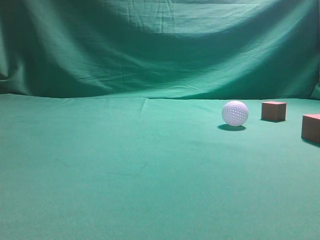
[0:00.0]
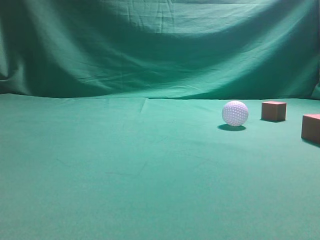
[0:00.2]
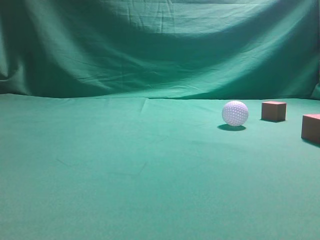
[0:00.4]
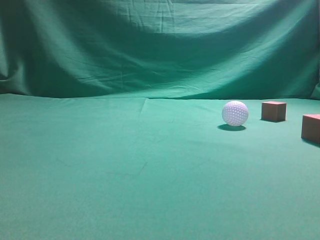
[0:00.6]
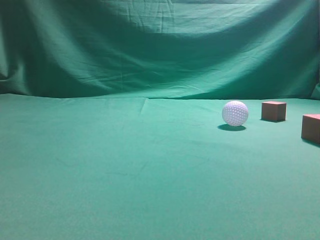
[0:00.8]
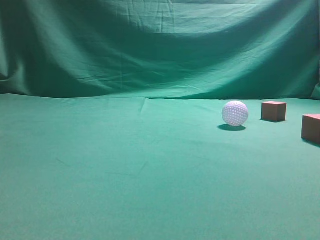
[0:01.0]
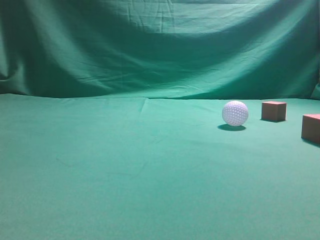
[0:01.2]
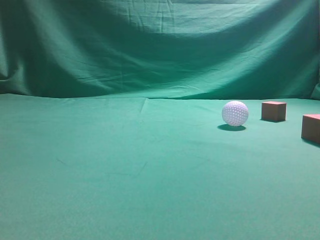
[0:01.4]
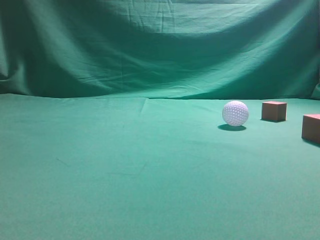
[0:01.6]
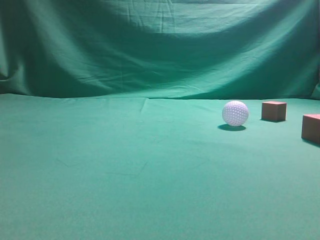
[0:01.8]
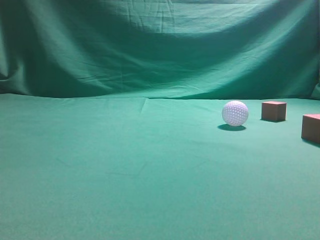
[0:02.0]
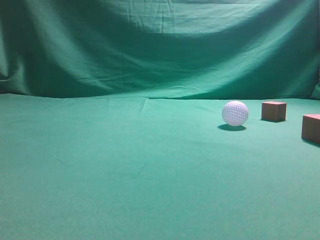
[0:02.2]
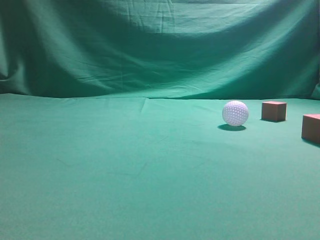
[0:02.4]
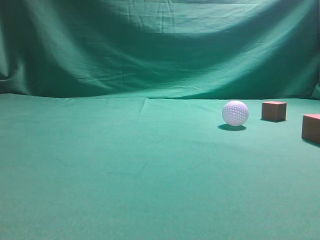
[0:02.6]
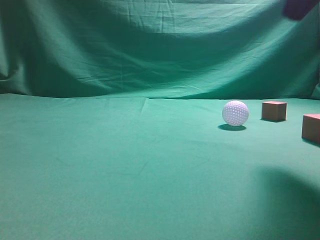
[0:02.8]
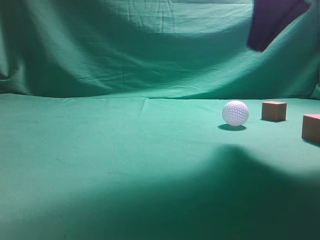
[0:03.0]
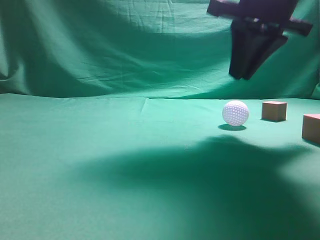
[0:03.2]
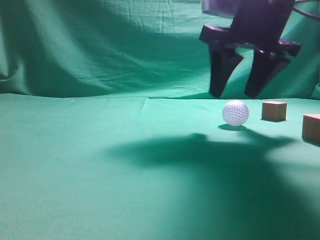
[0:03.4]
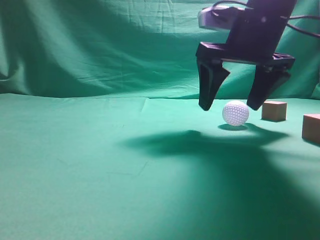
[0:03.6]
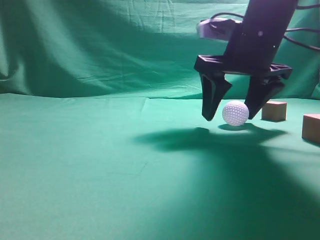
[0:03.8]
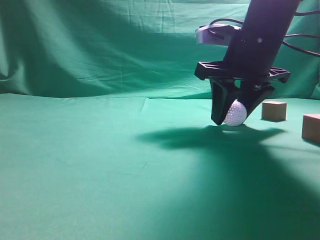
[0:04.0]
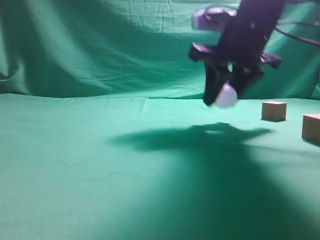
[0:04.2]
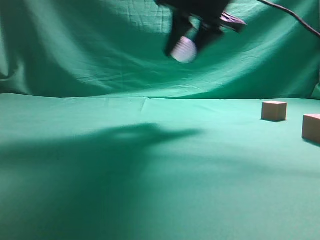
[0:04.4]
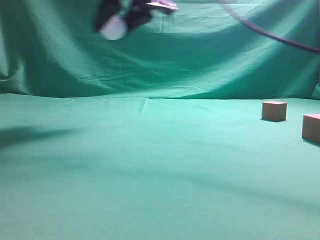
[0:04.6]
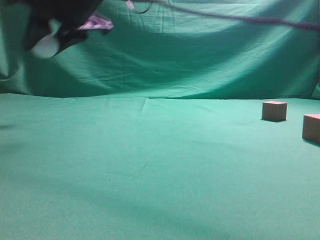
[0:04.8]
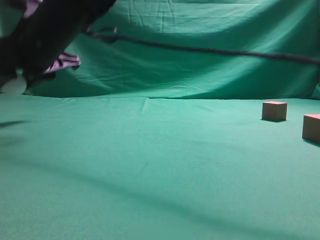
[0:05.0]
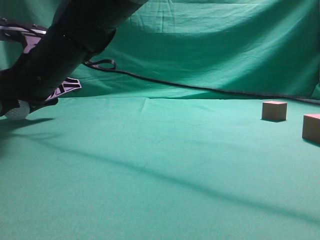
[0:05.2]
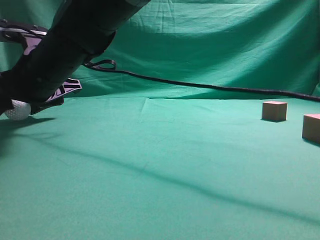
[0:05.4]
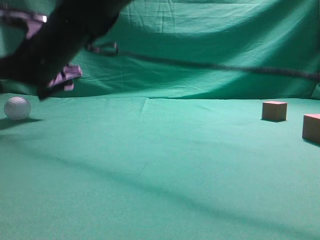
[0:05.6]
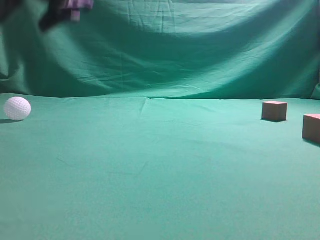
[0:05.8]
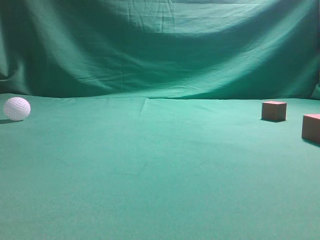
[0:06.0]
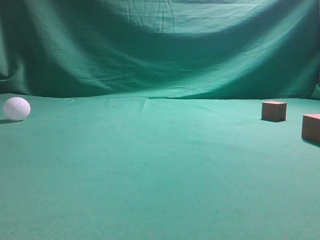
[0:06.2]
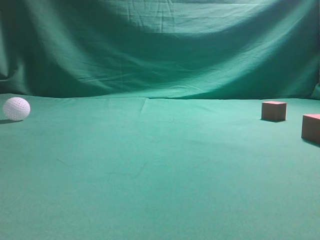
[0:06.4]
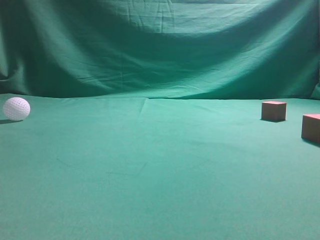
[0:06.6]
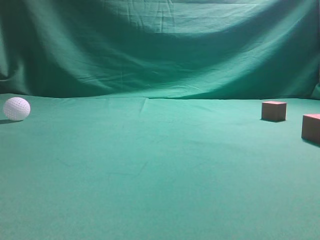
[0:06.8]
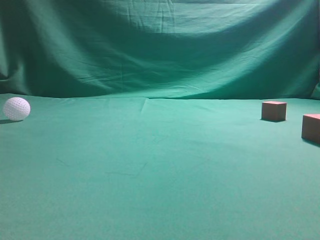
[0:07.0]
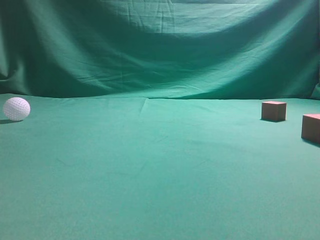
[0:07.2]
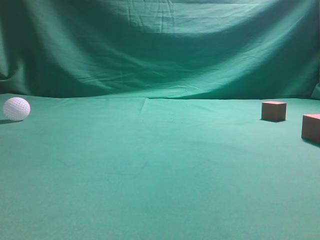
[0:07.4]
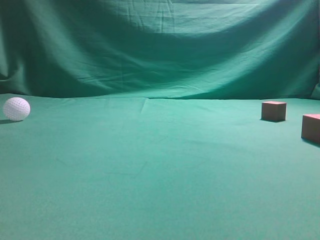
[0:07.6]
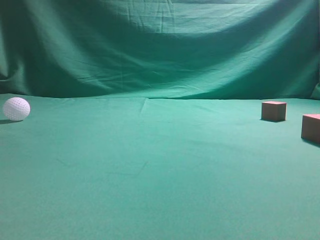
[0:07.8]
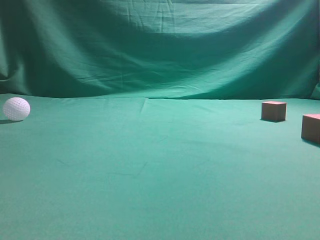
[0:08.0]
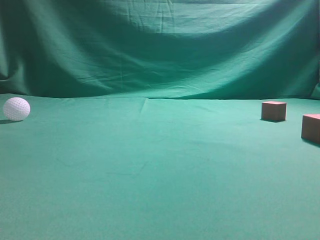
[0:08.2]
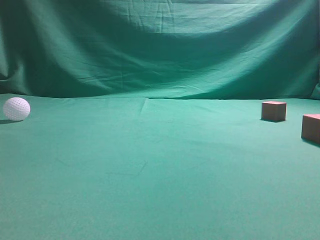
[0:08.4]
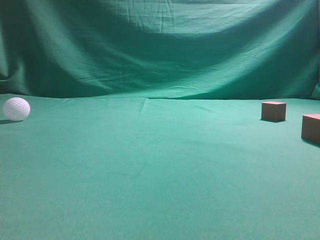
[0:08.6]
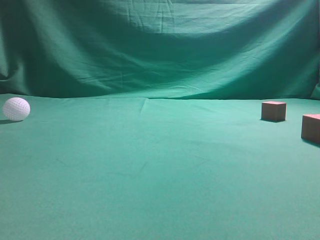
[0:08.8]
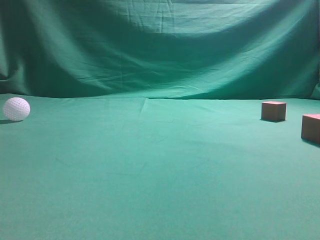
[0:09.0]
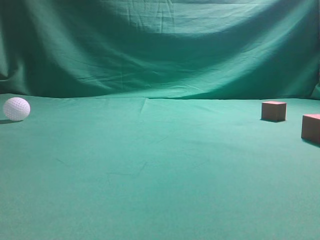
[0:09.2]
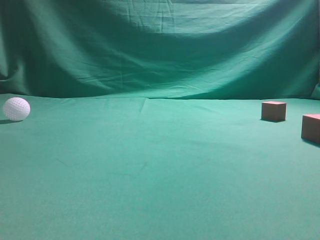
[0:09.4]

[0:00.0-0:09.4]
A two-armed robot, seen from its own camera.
Step, 0:00.0 to 0:04.2: Grasp the spherical object on the right side.
0:01.6 to 0:03.2: The right gripper goes approximately 30 cm forward and to the left.
0:03.2 to 0:04.8: The right gripper is displaced to the left by about 25 cm, and opens and closes again.
0:04.8 to 0:06.2: The right gripper moves upward and to the right, about 25 cm, and closes its fingers.

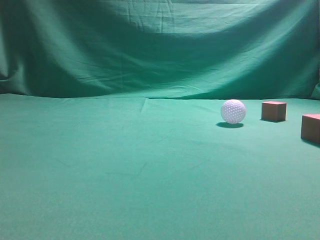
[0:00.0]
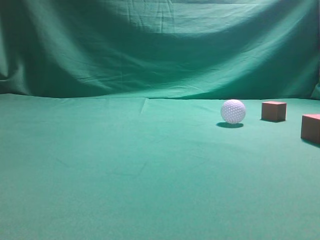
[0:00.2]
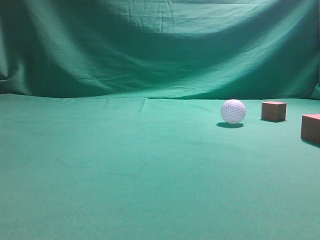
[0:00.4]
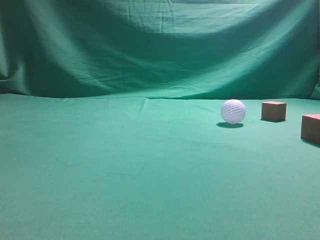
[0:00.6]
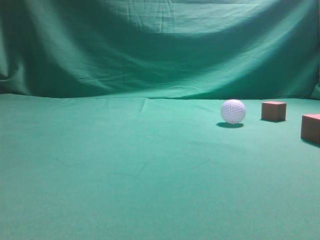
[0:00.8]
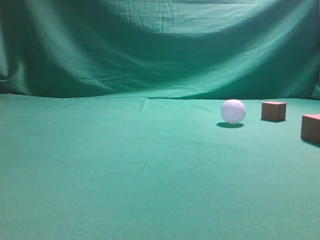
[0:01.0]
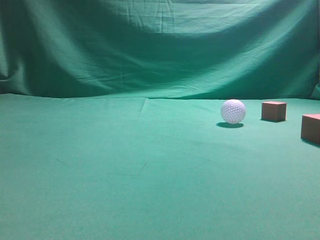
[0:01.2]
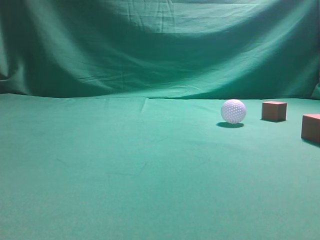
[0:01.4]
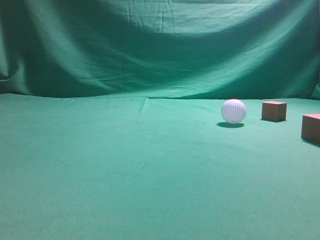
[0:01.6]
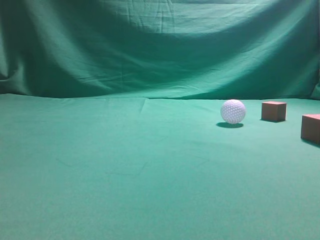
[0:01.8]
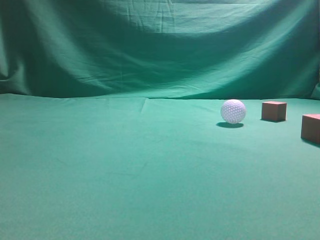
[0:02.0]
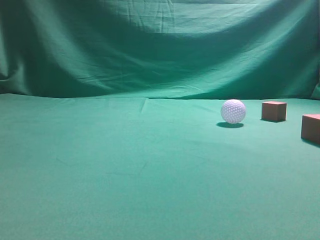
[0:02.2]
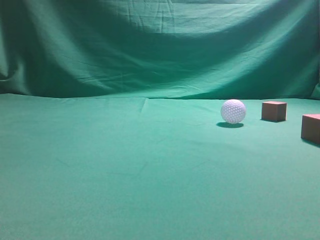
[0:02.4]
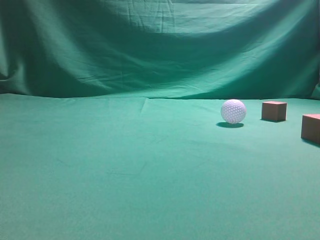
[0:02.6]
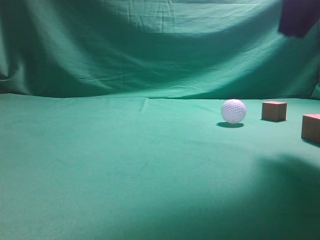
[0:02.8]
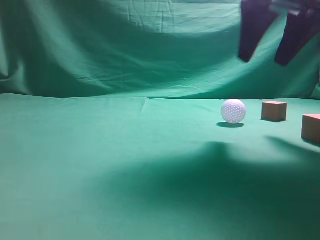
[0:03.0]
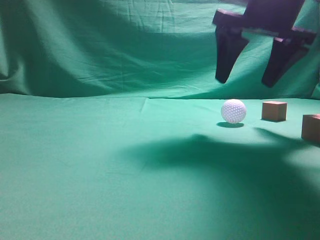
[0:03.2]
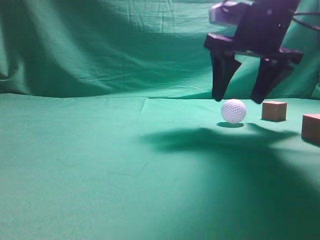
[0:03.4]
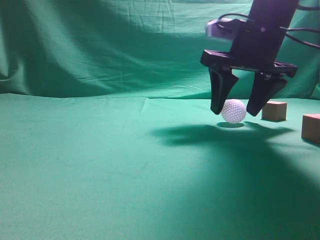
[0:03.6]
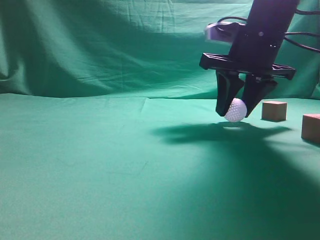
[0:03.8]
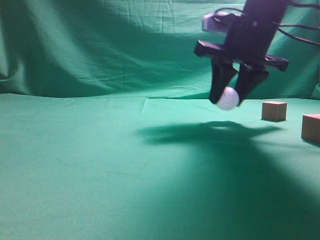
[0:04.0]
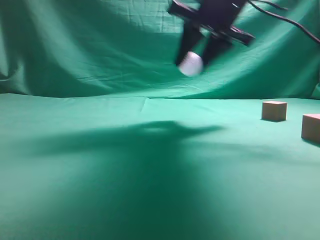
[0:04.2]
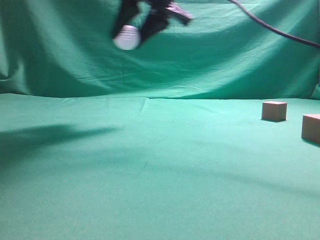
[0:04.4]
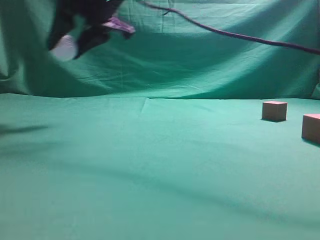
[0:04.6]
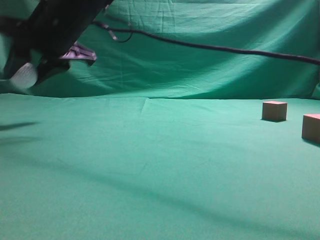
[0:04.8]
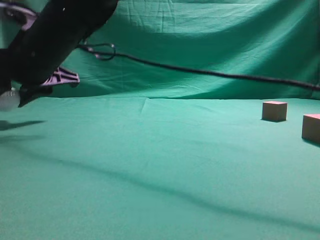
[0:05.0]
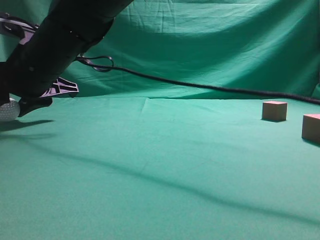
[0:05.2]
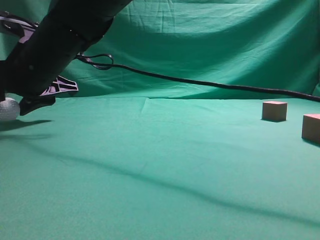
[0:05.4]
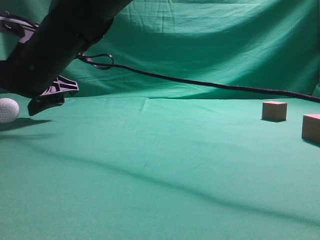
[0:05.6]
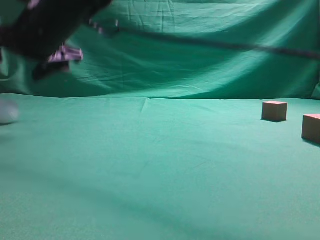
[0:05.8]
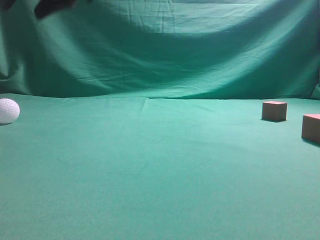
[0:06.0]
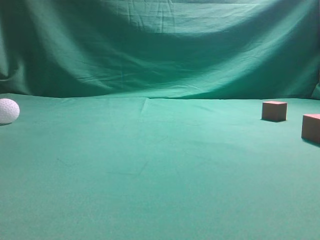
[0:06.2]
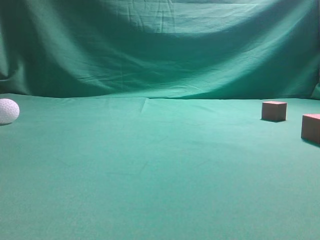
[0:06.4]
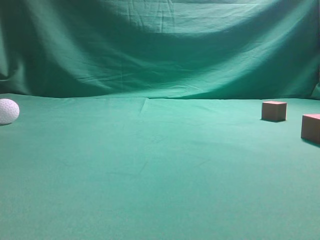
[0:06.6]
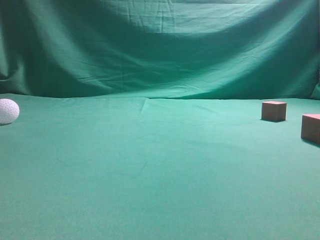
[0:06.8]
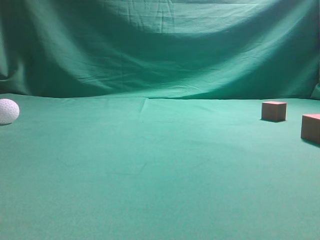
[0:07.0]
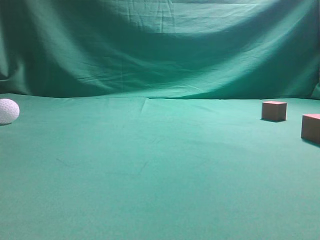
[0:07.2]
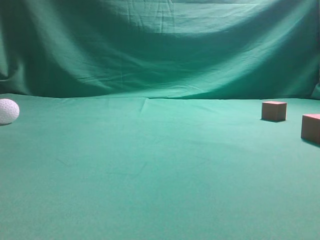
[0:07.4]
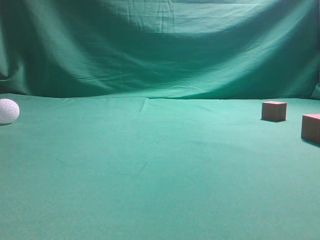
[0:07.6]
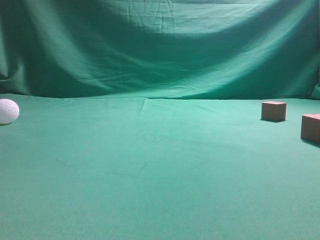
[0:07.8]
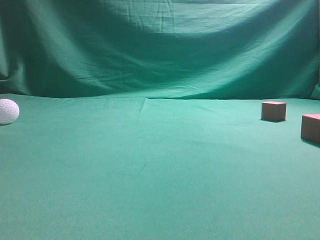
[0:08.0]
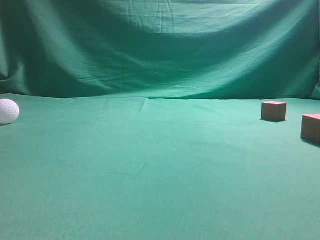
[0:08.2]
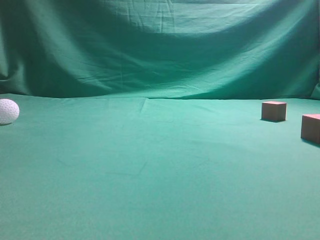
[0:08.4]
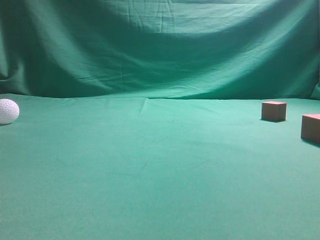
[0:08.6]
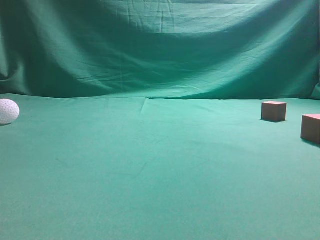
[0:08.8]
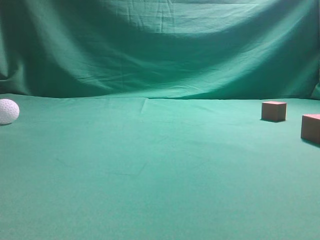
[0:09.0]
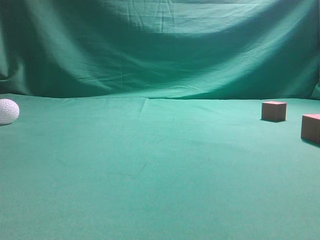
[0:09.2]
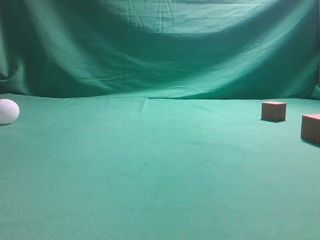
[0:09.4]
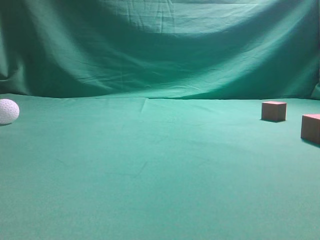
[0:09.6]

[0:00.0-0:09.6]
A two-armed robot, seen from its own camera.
Step, 0:00.0 to 0:03.8: Grasp the spherical object on the right side.
0:01.6 to 0:03.2: The right gripper travels forward and to the left by roughly 35 cm, and opens its fingers.
0:03.2 to 0:04.8: The right gripper is displaced to the left by approximately 30 cm, and closes its fingers.
0:04.8 to 0:06.4: The right gripper heads upward and to the right, covering approximately 25 cm, and closes up.
